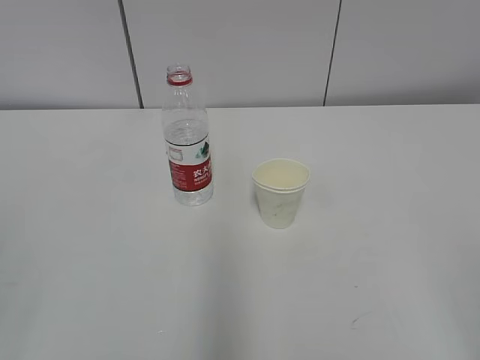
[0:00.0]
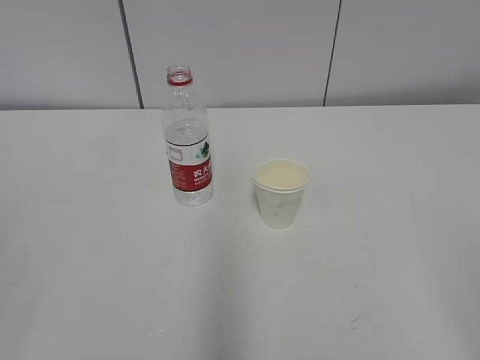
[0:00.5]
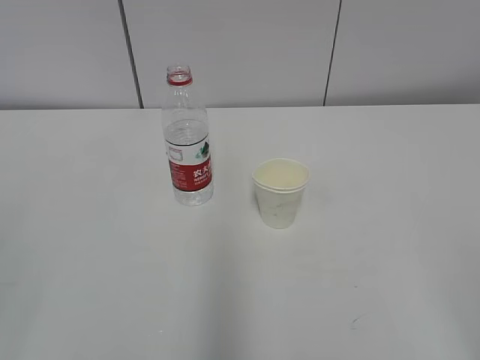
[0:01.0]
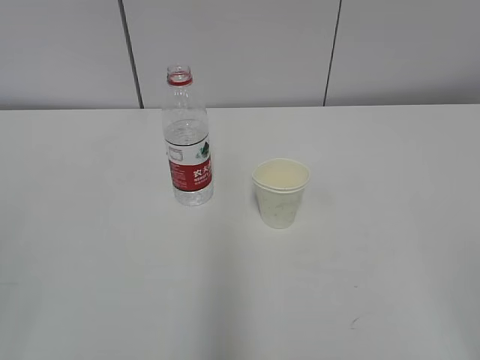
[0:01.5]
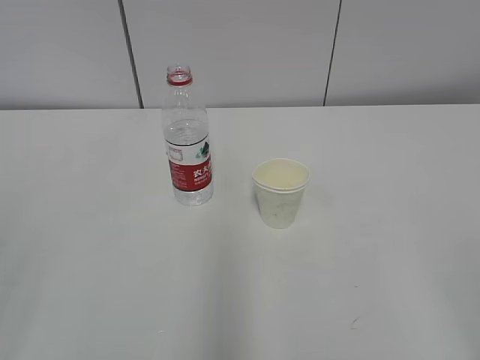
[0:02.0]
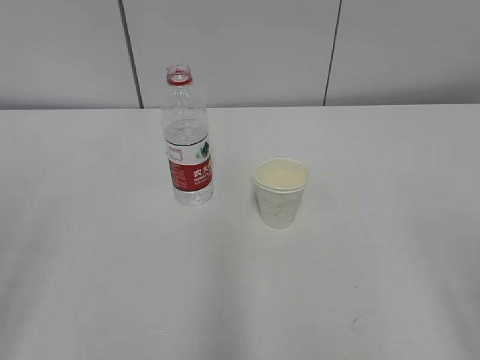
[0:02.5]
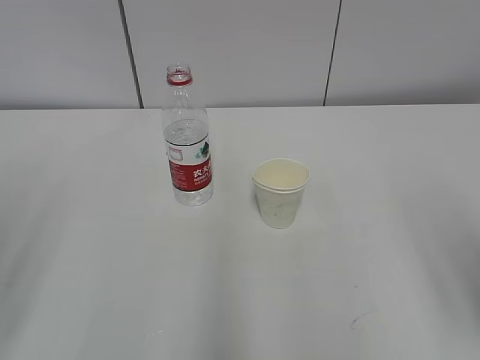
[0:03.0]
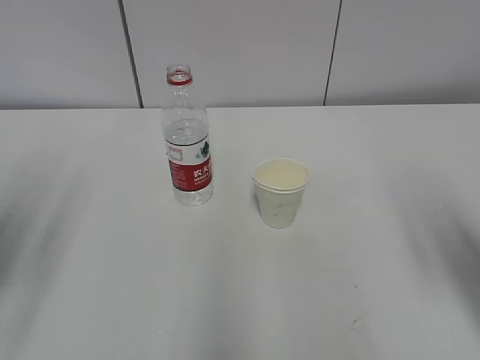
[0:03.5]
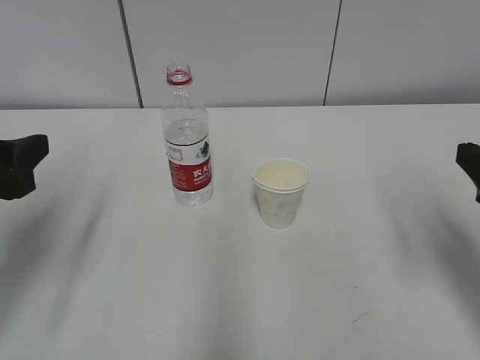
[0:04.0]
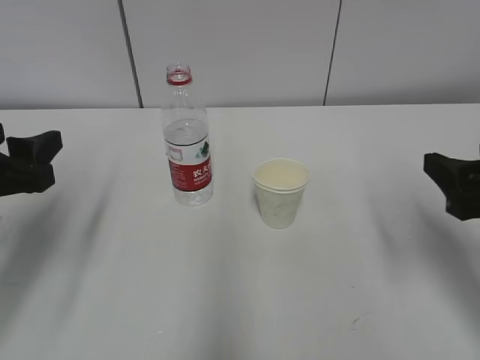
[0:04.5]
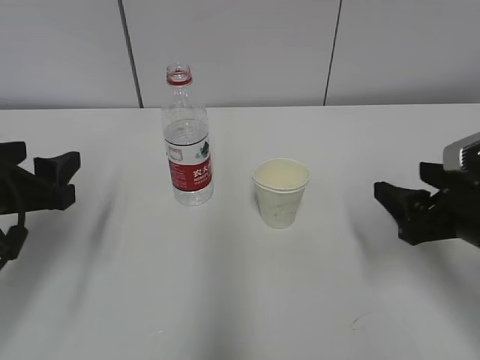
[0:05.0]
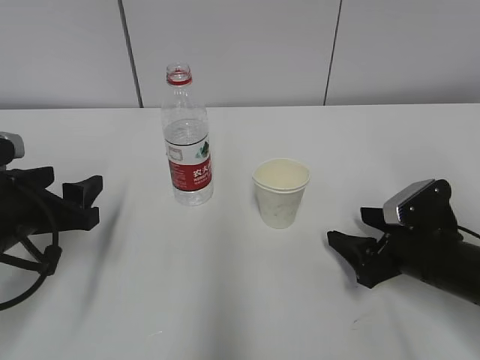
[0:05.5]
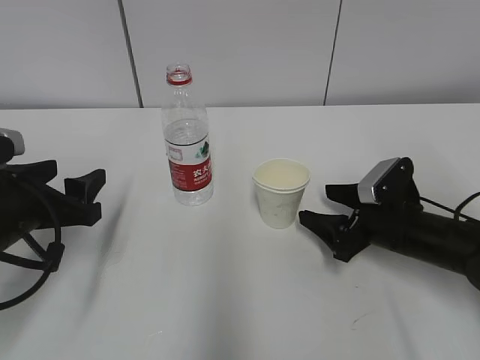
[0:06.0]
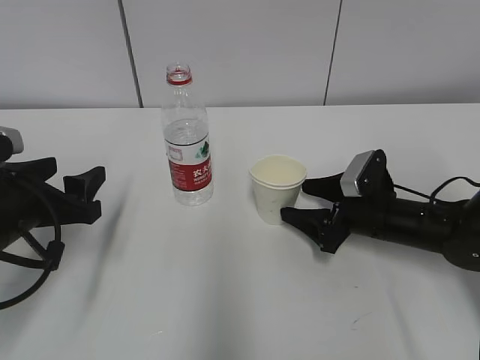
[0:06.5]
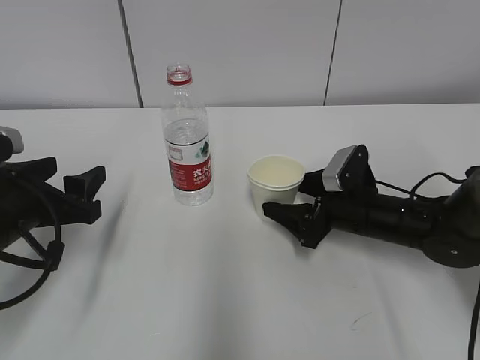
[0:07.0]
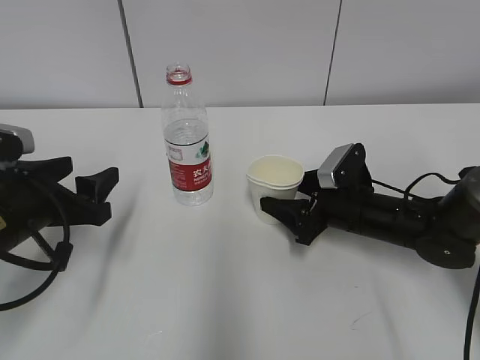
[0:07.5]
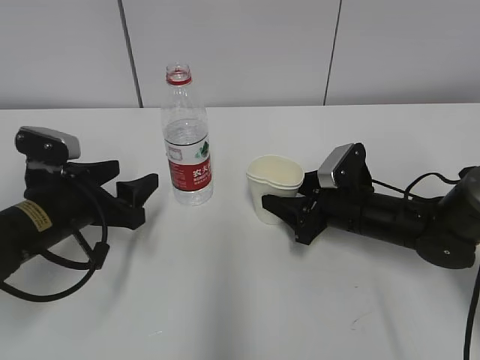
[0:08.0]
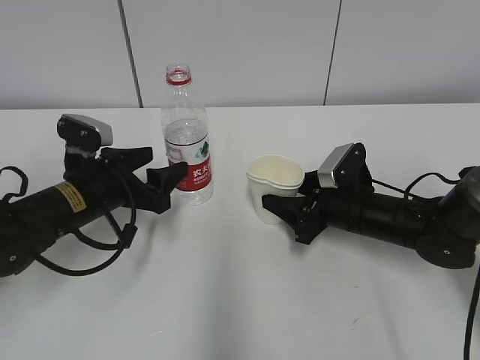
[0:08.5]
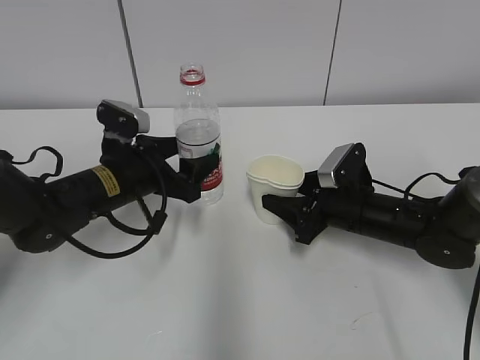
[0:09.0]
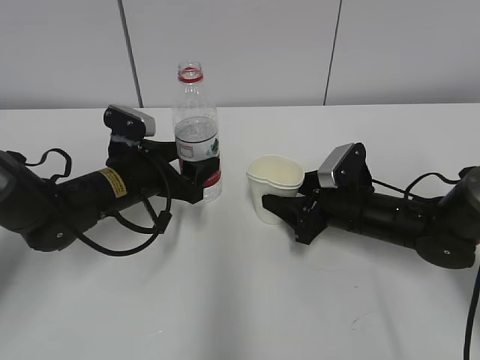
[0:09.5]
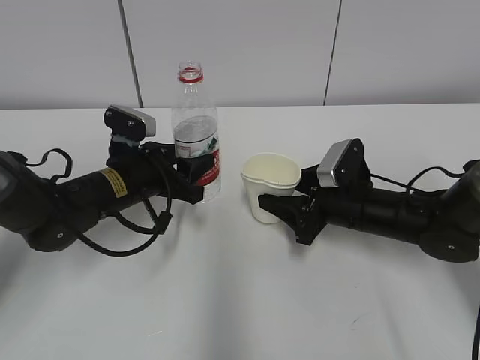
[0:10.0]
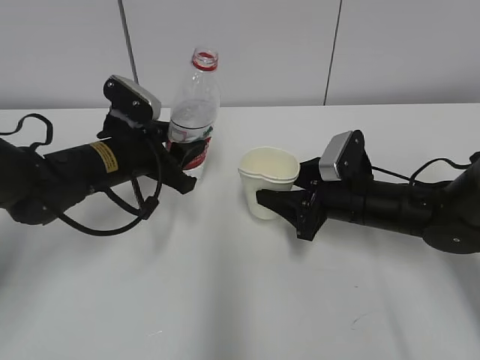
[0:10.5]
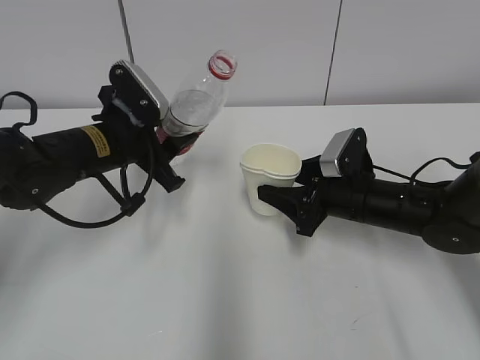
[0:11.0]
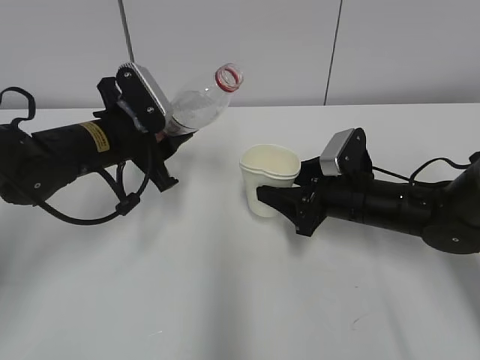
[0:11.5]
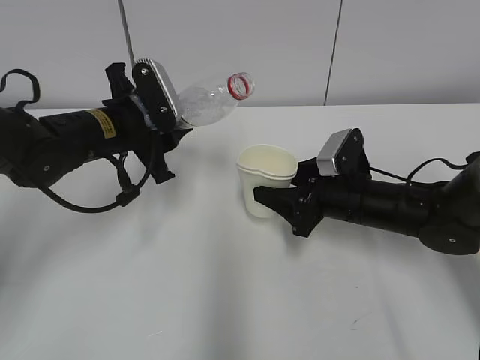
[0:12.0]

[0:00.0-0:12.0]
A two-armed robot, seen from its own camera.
Step, 0:00.0 to 0:08.0: Grab the paper cup with the right hand.
Step, 0:08.5 to 0:12.0: Lift the paper cup with the right hand.
0:02.0 to 0:04.0: Both grippers move forward, roughly 20 cm.
0:04.0 to 0:06.0: The left gripper moves downward and forward, roughly 10 cm, while the right gripper moves downward and forward, some 20 cm.
0:06.0 to 0:08.0: The left gripper ends up approximately 5 cm from where it was. The right gripper ends up about 5 cm from where it was, and closes its fingers.
0:08.0 to 0:10.0: The left gripper is displaced forward and to the right by roughly 10 cm, and closes its fingers.
0:10.0 to 0:12.0: The left gripper heads upward, covering about 5 cm.

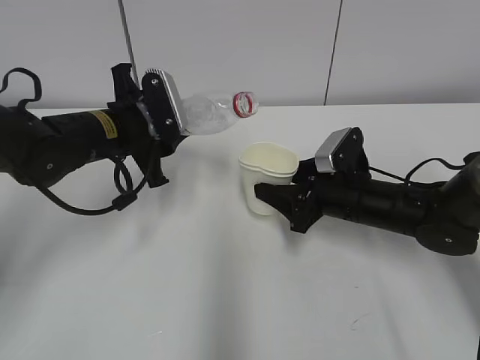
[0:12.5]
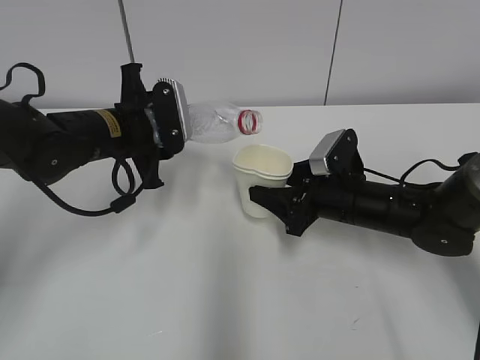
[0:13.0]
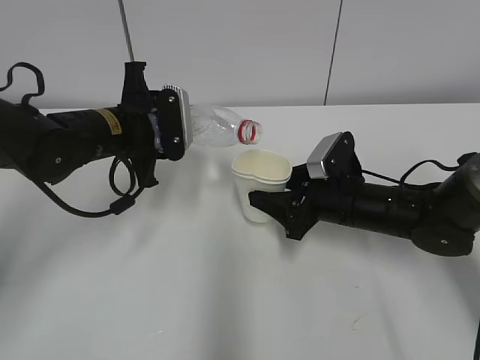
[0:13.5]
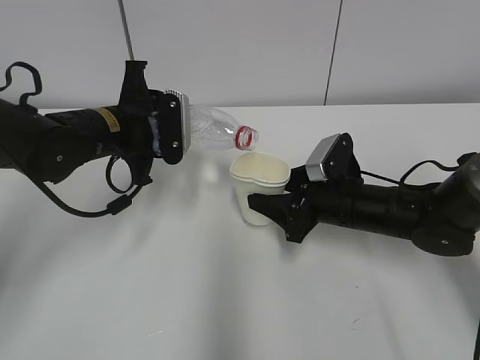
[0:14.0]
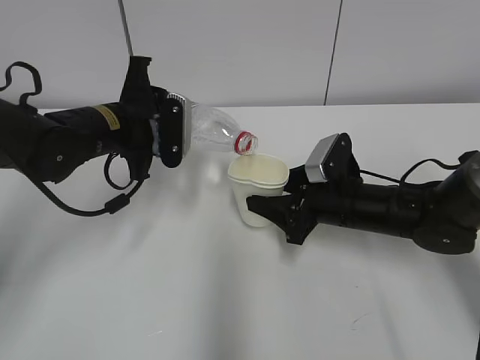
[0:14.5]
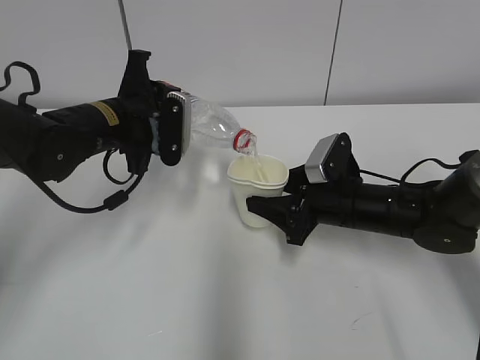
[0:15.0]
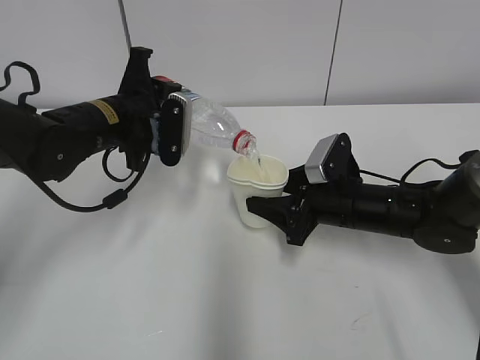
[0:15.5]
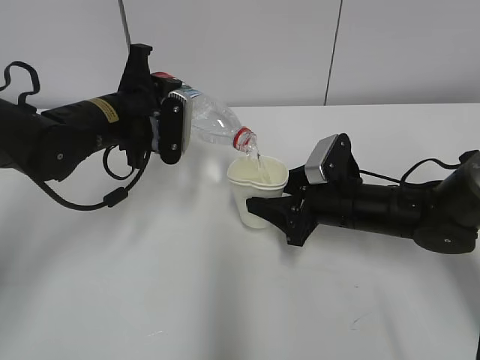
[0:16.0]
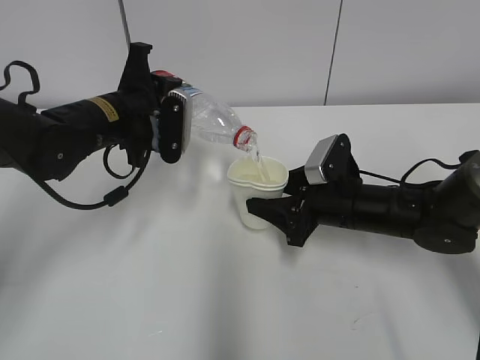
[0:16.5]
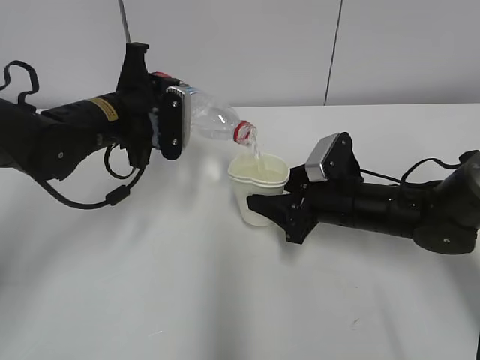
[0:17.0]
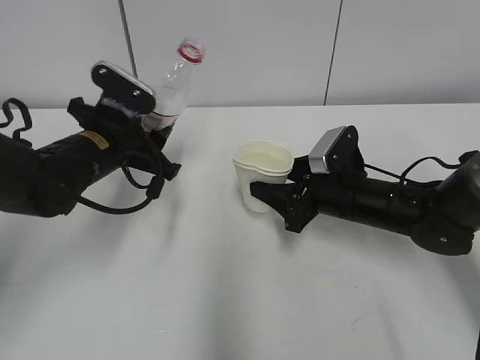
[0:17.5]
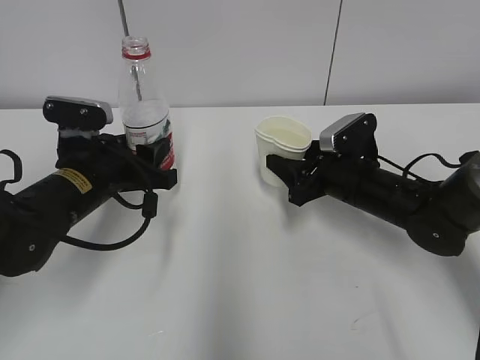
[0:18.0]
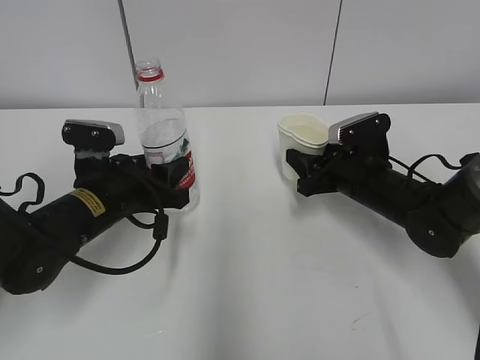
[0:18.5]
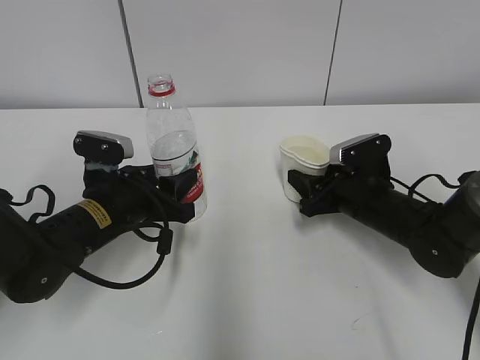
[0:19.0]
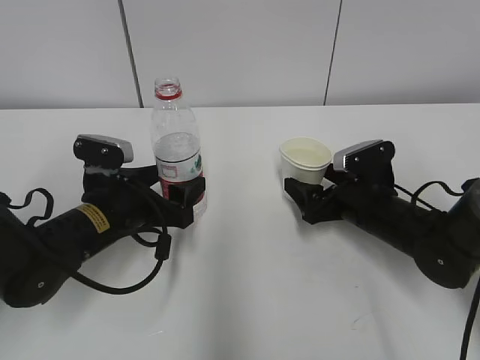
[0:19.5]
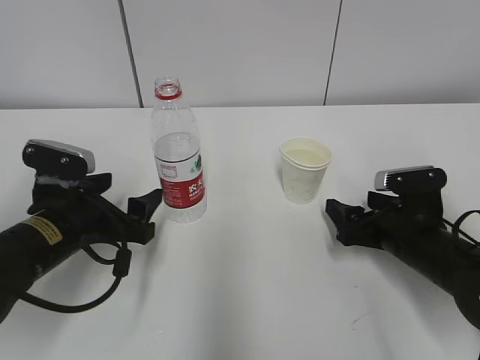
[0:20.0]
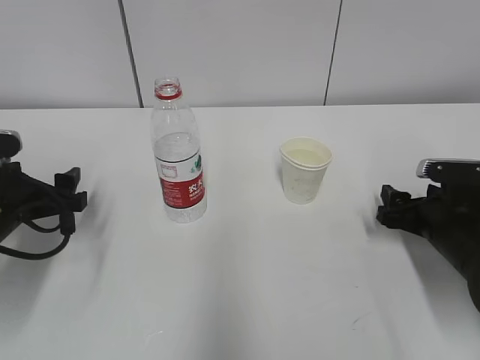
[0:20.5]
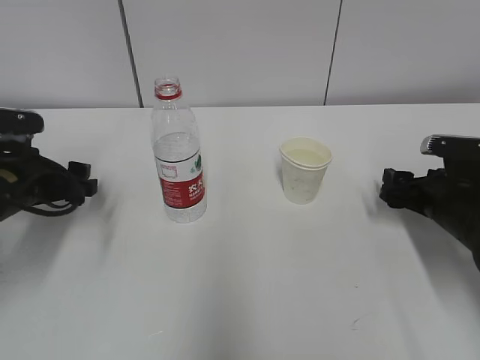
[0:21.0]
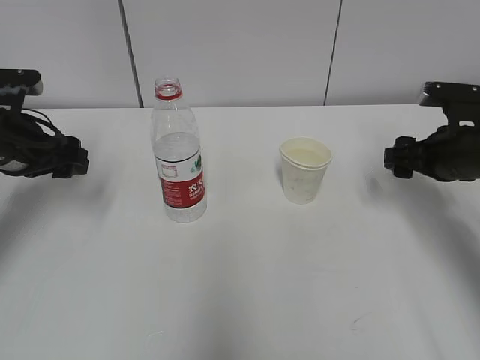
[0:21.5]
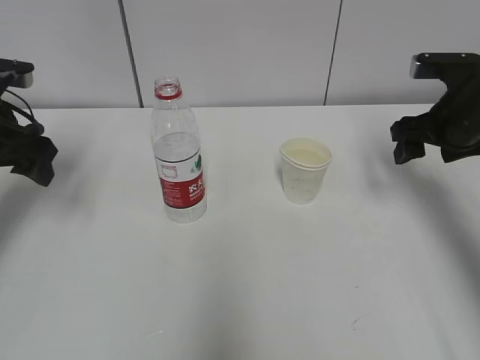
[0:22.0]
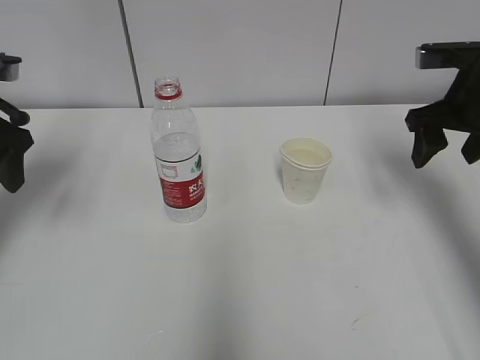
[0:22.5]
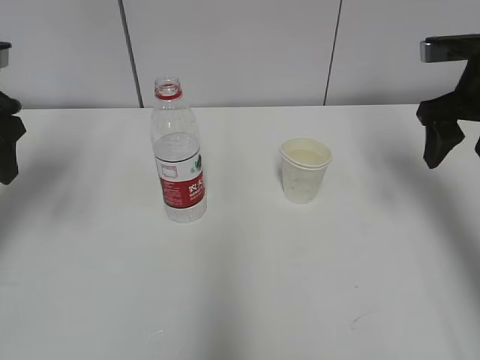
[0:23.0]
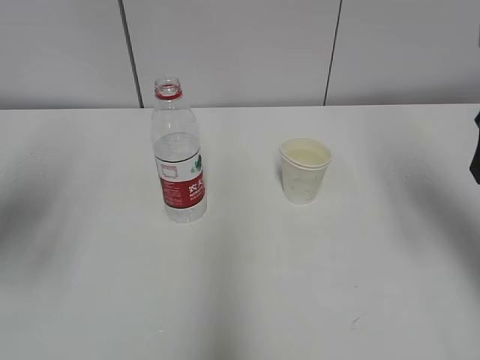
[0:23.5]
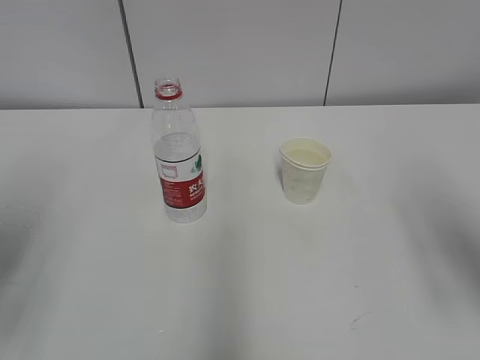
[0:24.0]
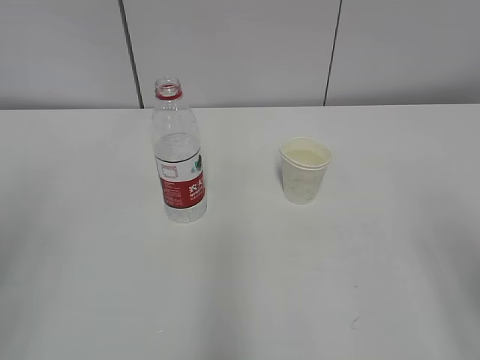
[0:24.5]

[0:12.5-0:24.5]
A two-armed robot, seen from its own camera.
Step, 0:12.5 to 0:14.0: Fill water with the right hand.
Step, 0:12.5 to 0:14.0: Pour water with the left hand.
Step, 0:14.5 to 0:15.0: Collect water with the left hand.
0:14.5 to 0:16.5: The grippers move only a little.
0:16.5 to 0:18.5: The left gripper heads downward and backward, covering roughly 10 cm.
0:18.5 to 0:20.5: The left gripper travels to the left by about 10 cm, and opens. The right gripper is displaced to the right and backward by approximately 10 cm, and opens its fingers.
0:20.5 to 0:22.5: The two grippers go some 15 cm upward.
0:22.5 to 0:24.5: Both grippers travel together backward, some 25 cm.

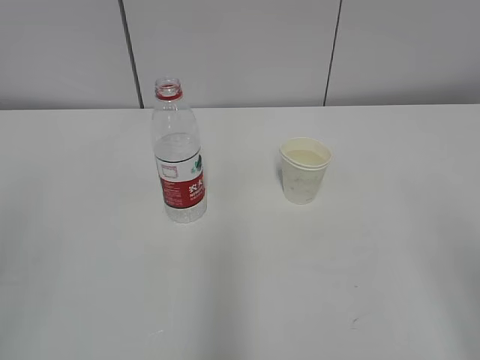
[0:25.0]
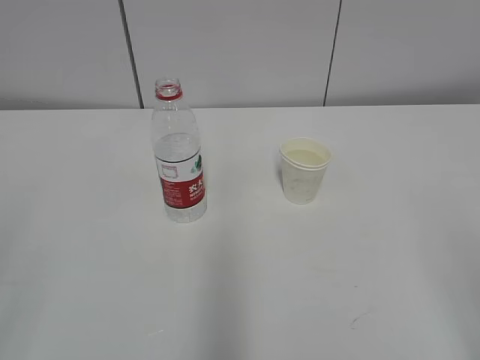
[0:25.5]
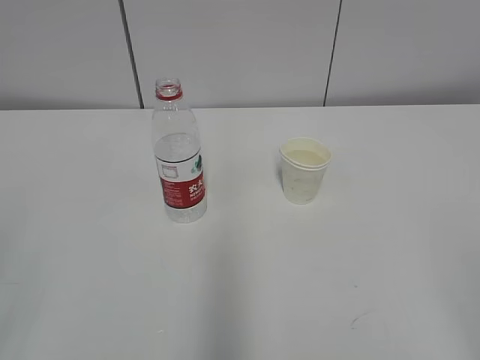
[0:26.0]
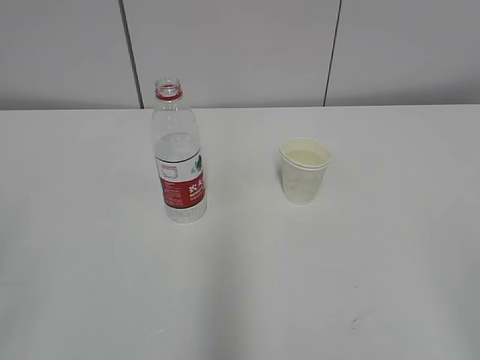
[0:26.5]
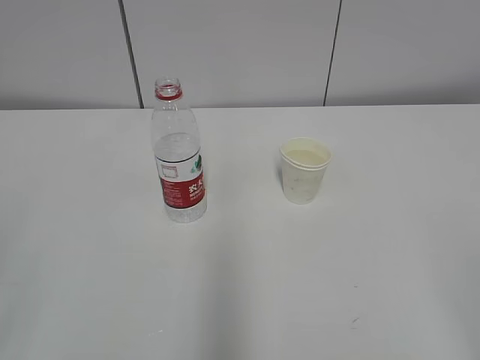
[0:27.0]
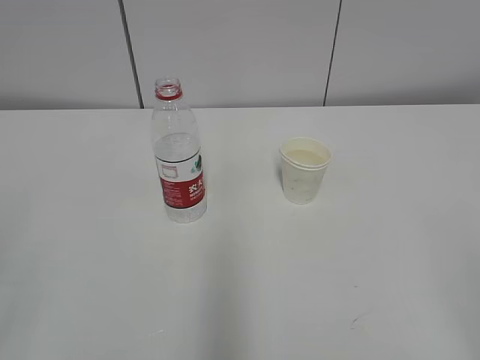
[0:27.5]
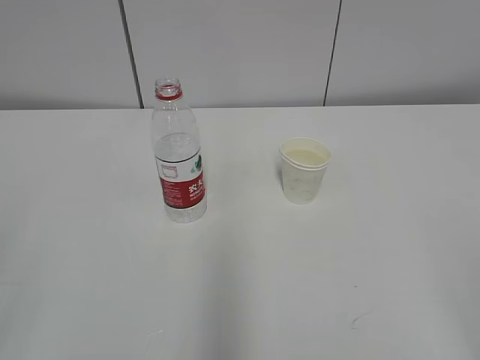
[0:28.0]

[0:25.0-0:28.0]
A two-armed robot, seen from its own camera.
0:26.5 to 0:28.0: Neither gripper changes place.
